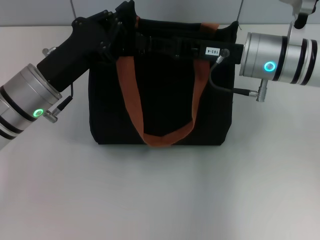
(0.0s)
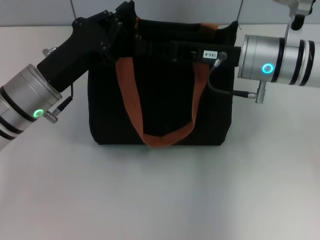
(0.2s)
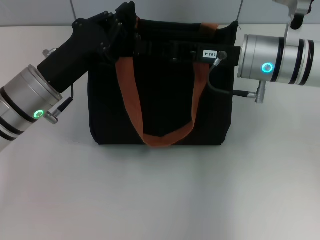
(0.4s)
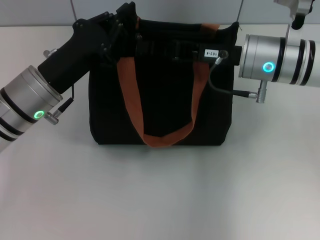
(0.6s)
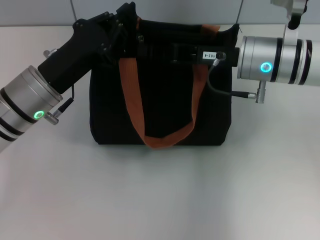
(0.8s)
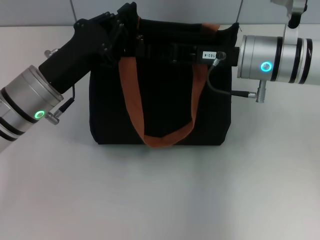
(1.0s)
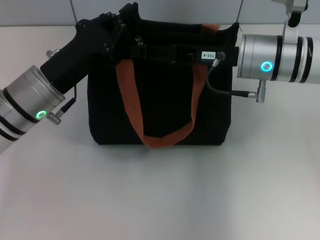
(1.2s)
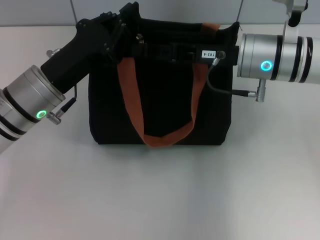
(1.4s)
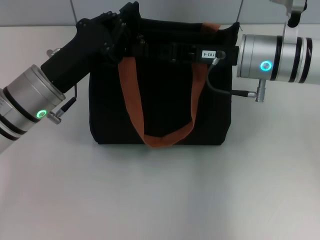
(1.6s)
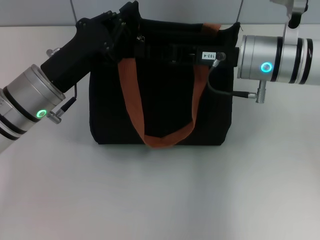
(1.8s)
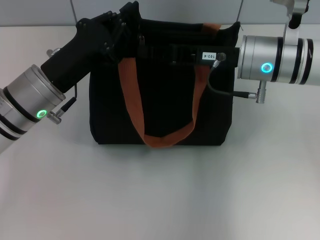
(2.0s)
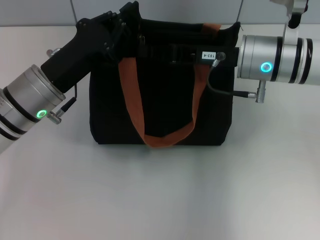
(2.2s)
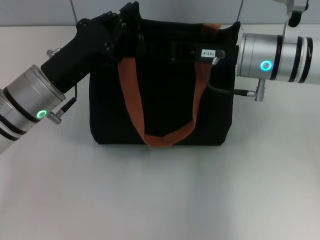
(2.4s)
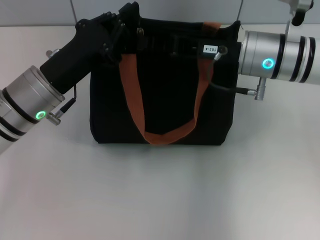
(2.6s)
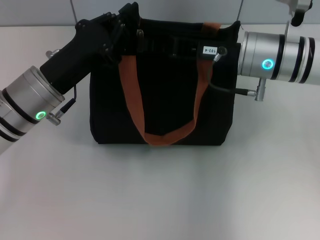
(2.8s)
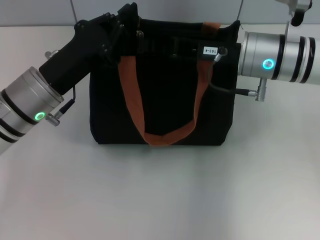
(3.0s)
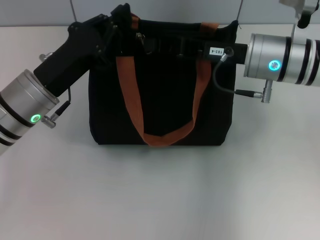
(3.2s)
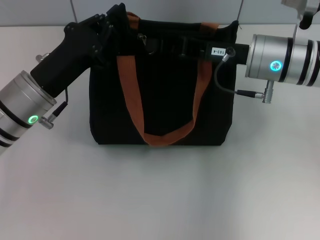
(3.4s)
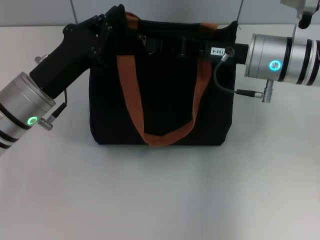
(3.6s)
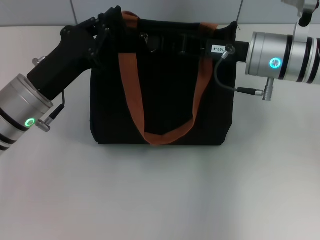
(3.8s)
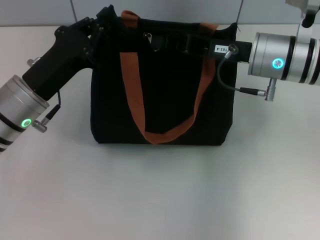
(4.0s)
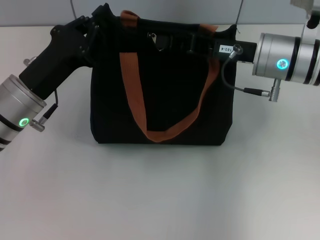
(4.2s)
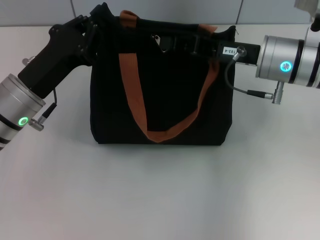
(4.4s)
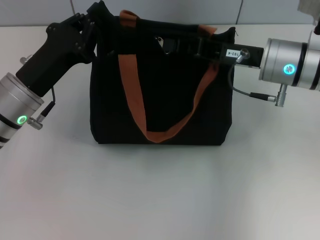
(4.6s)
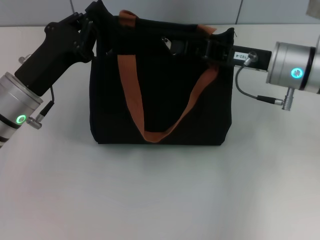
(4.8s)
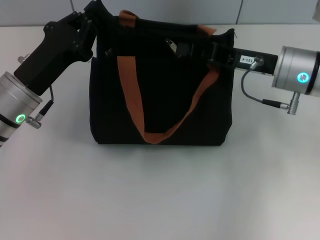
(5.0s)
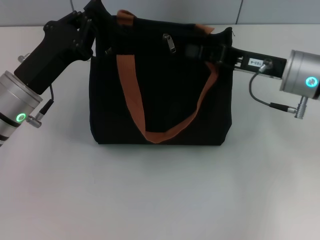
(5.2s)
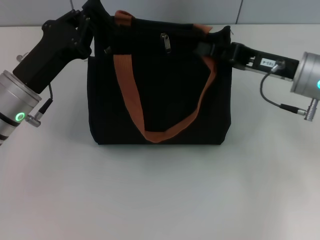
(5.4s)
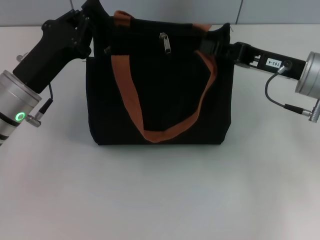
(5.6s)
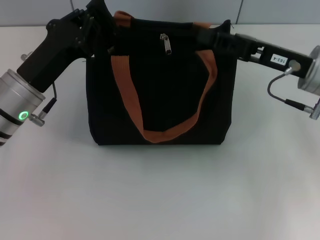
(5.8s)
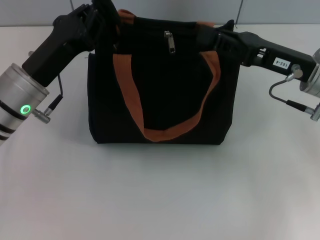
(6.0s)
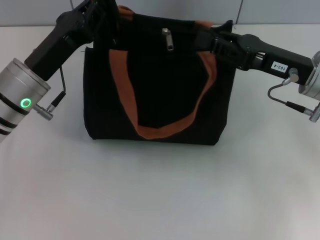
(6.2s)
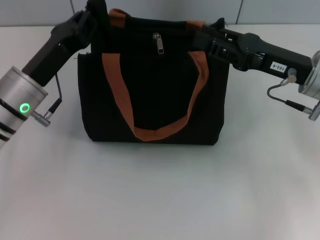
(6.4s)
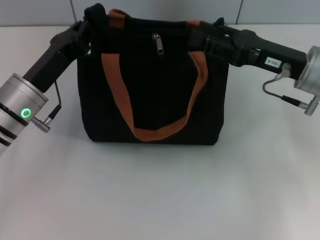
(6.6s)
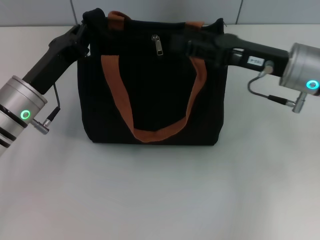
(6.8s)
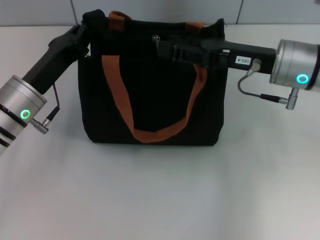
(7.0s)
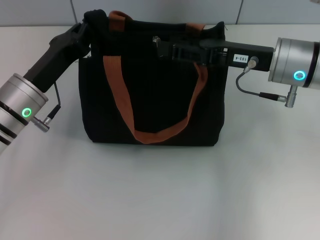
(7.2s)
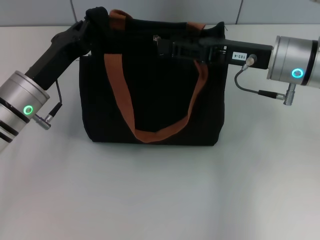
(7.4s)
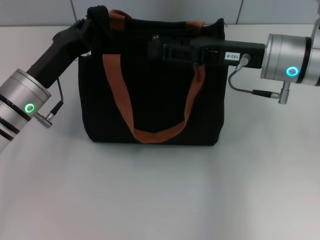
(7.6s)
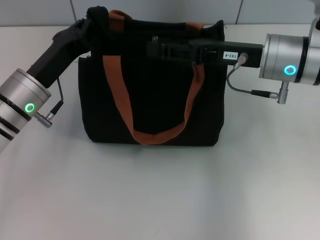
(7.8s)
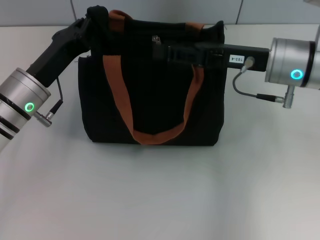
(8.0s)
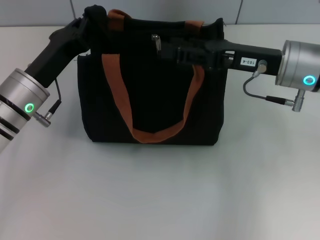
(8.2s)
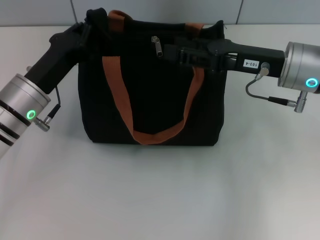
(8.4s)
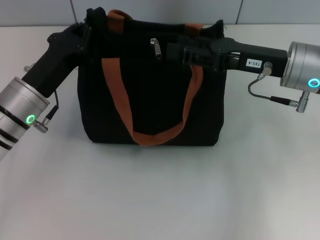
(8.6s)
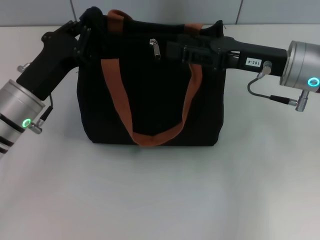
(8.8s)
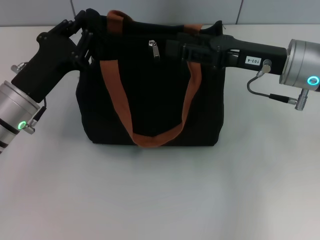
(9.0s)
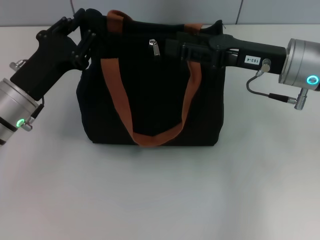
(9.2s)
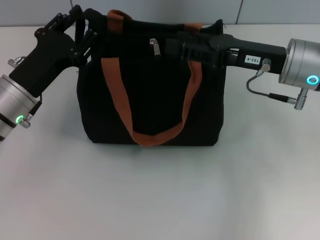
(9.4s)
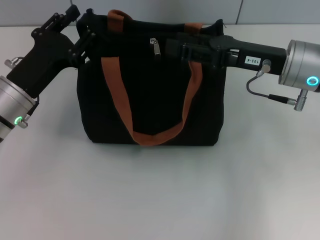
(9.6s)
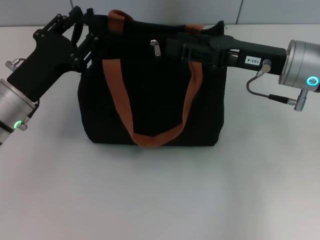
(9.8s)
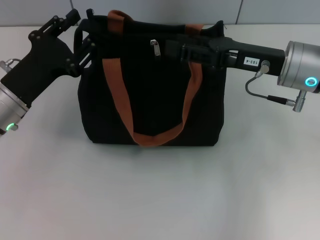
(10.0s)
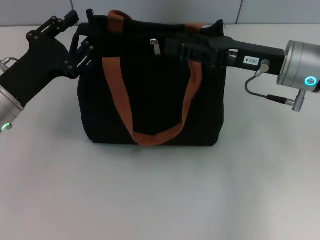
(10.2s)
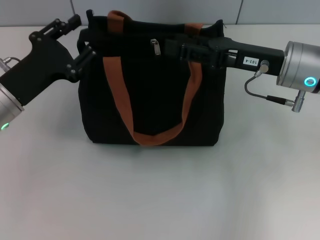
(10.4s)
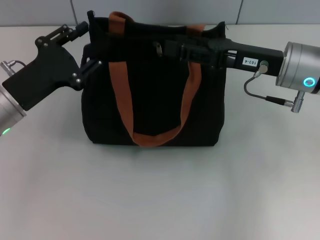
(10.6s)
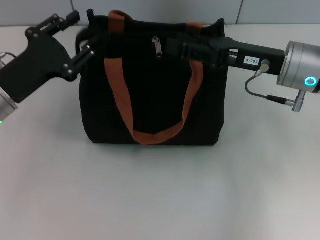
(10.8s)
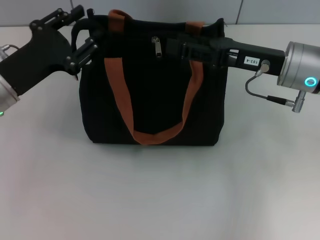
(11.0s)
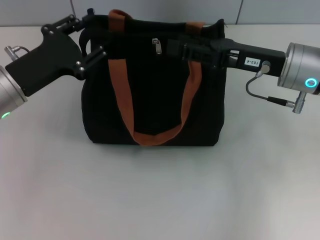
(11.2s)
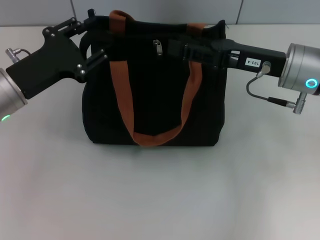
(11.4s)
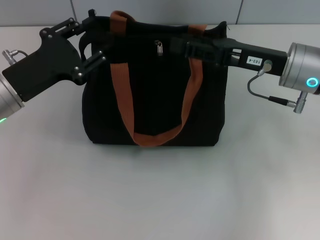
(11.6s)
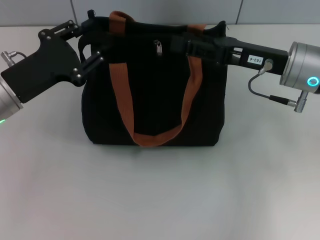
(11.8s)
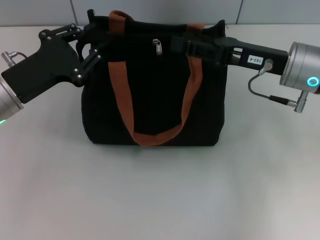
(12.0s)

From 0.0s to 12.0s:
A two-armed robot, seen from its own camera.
From 0.0s to 1.6s: Both grippers stay about where they are.
From 1.6s to 3.0s: The right gripper closes.
From 3.0s to 4.4s: The grippers stay close to where they were, moving slightly.
From 4.4s to 6.0s: The right gripper ends up some 5 cm from where it was.
From 6.0s to 7.6s: The right gripper heads to the left, covering about 5 cm, and opens its fingers.
From 9.0s to 10.4s: The left gripper opens its fingers.
From 10.4s to 12.0s: There are only small adjustments of the grippers.

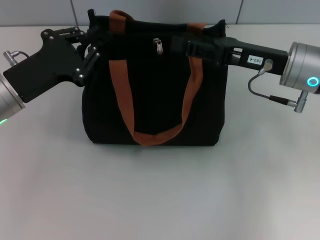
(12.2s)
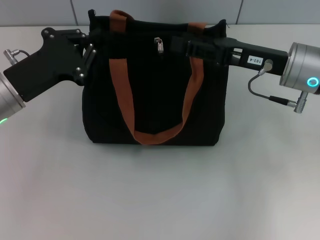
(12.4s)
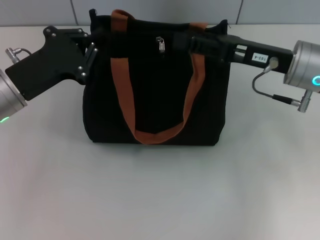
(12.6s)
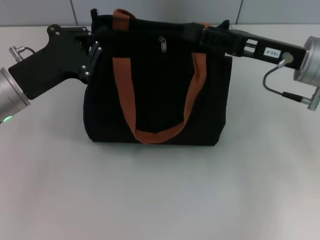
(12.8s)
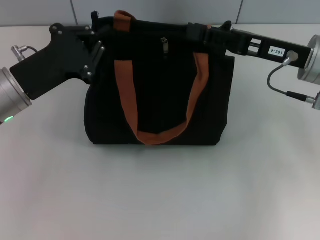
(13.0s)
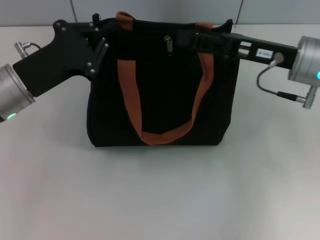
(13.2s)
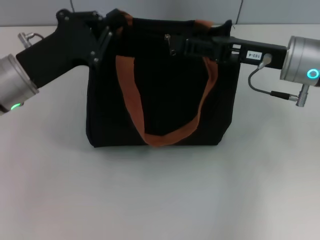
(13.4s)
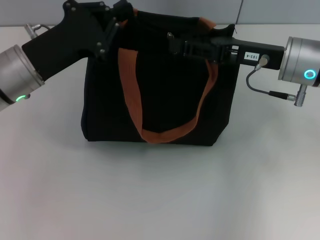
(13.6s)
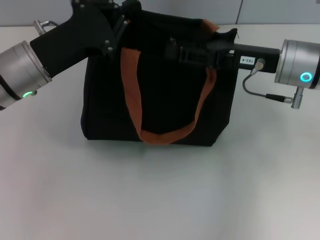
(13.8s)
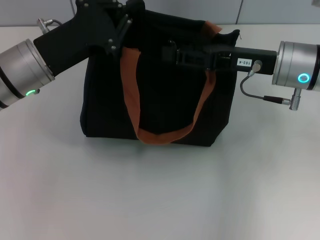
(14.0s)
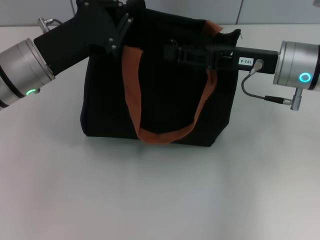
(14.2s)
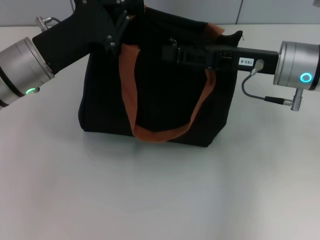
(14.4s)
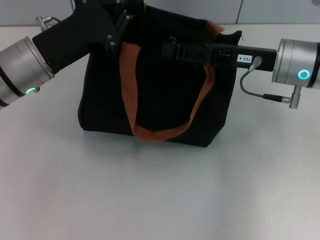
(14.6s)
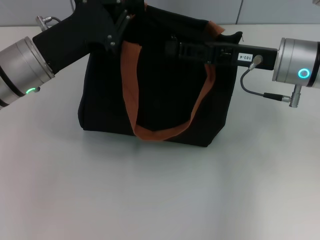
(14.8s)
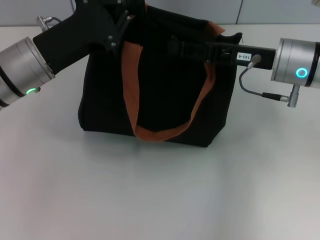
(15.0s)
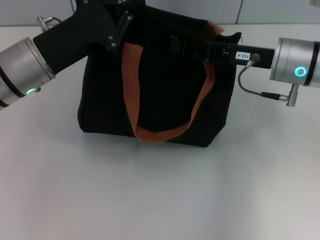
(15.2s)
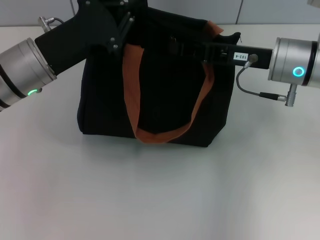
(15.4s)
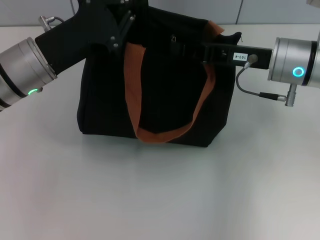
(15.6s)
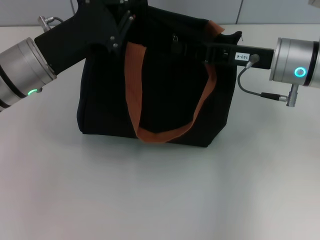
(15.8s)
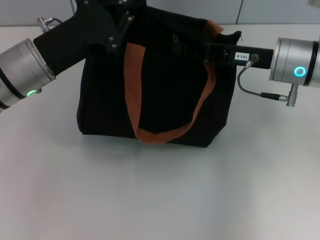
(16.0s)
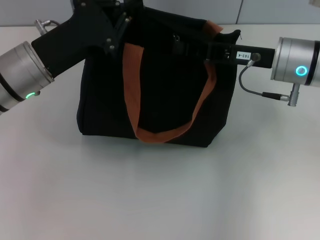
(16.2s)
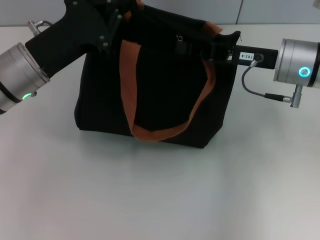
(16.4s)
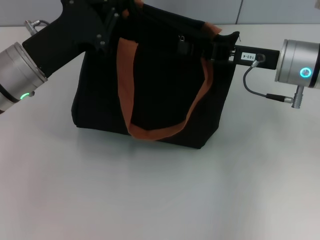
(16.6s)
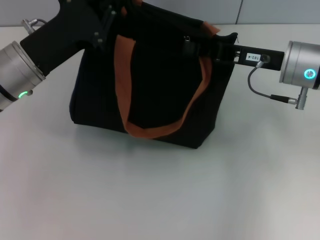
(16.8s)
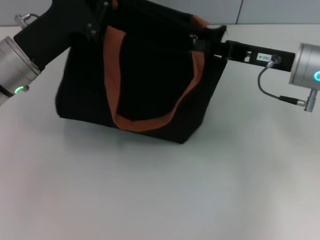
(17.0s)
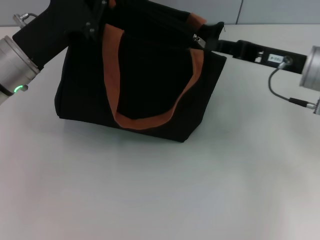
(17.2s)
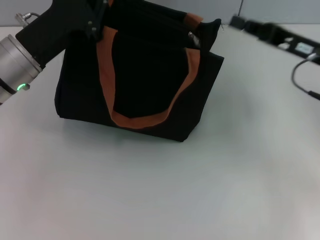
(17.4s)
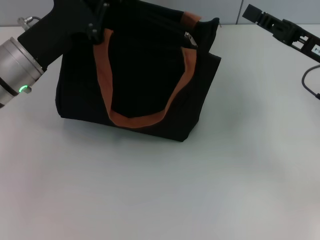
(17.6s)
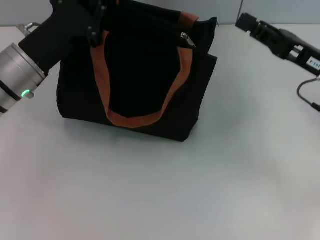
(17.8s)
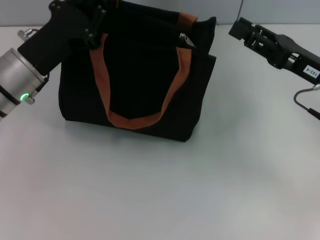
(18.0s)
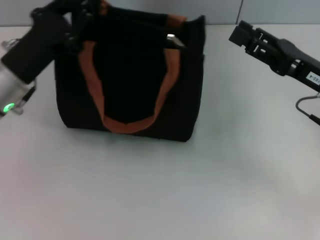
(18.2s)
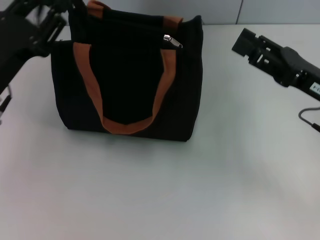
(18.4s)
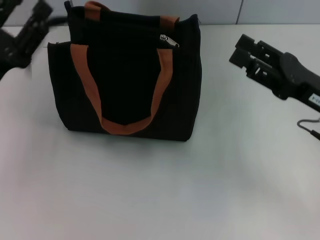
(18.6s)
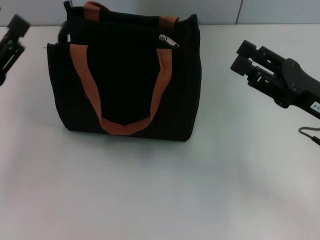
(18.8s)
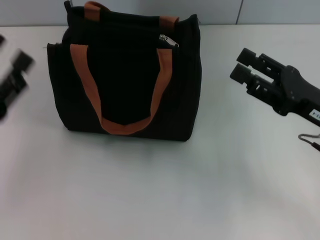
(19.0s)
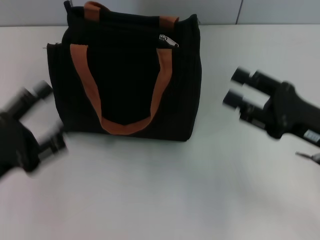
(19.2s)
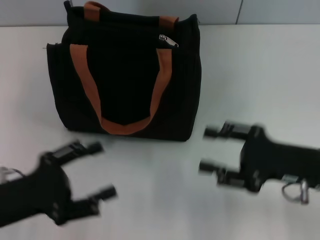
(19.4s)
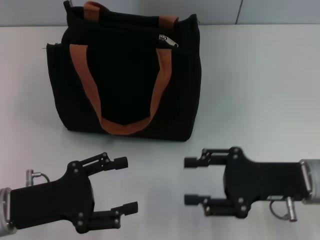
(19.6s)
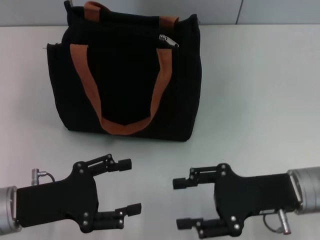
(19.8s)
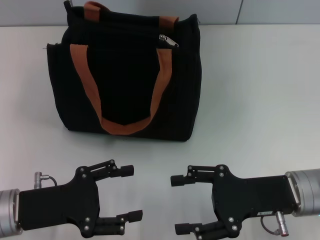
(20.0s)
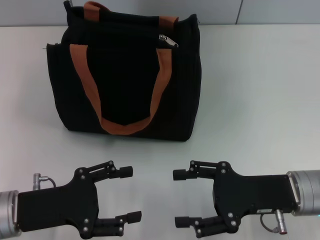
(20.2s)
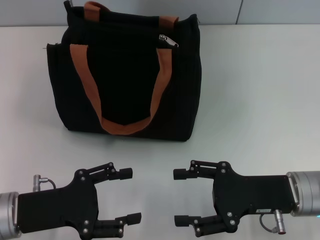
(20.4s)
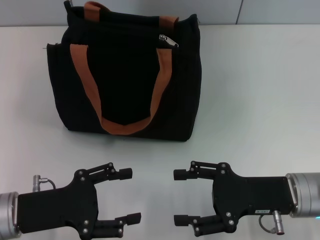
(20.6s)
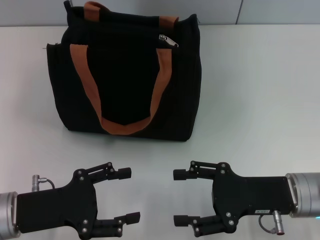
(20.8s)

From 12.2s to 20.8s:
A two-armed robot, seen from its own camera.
Step, from 12.2s to 17.2s: Pull up the zipper with your right hand.
Step, from 17.4s to 18.2s: Grab the zipper with your left hand.
From 12.2s to 13.6s: The left gripper closes.
From 13.6s to 15.0s: There are only small adjustments of the grippers.
From 15.0s to 16.6s: The right gripper closes up.
From 16.6s to 18.0s: The right gripper travels to the right and backward by approximately 10 cm.
From 18.0s to 19.4s: The right gripper shifts roughly 5 cm backward, and opens up. The left gripper travels backward by some 15 cm, and opens up.
